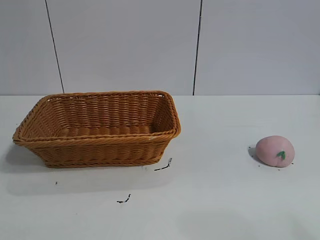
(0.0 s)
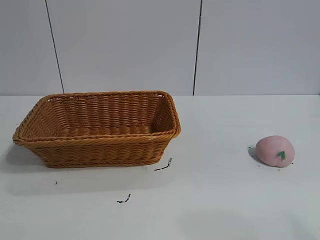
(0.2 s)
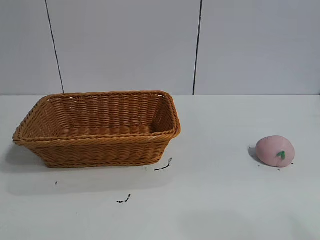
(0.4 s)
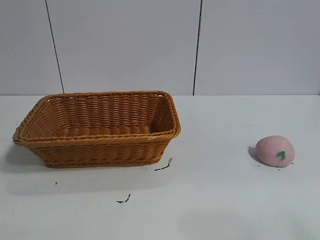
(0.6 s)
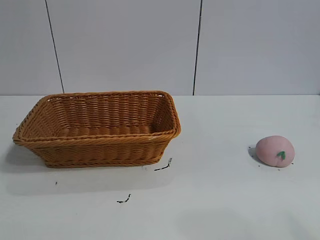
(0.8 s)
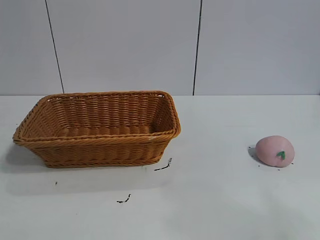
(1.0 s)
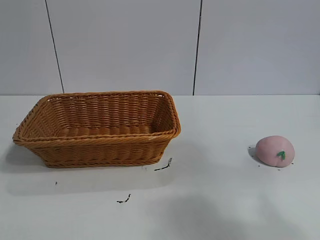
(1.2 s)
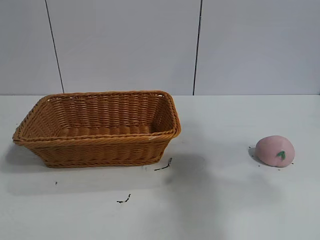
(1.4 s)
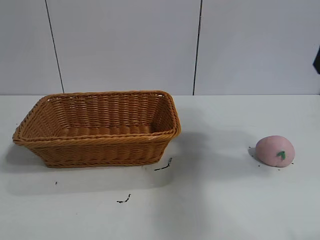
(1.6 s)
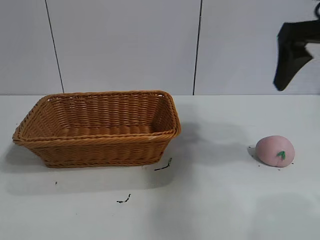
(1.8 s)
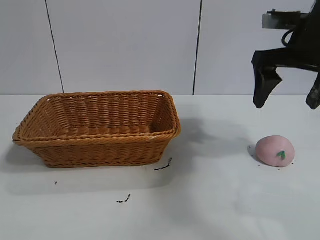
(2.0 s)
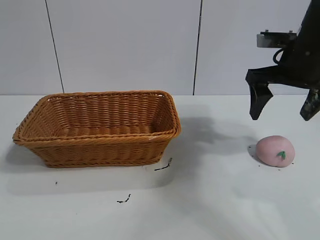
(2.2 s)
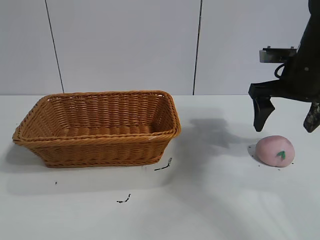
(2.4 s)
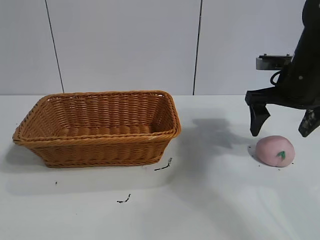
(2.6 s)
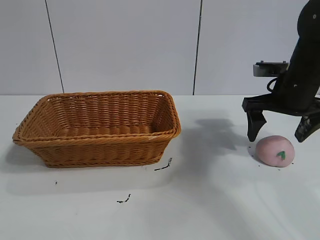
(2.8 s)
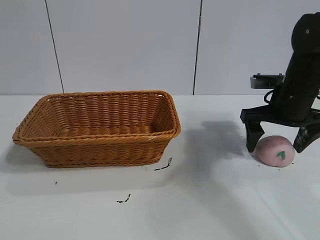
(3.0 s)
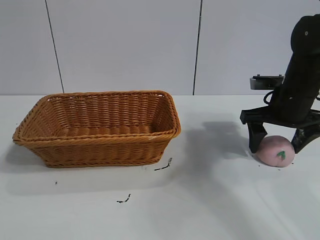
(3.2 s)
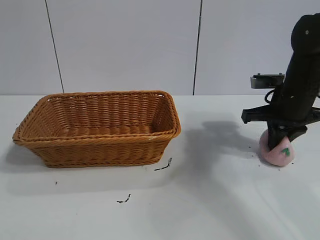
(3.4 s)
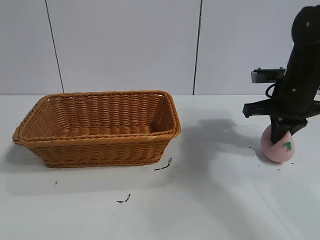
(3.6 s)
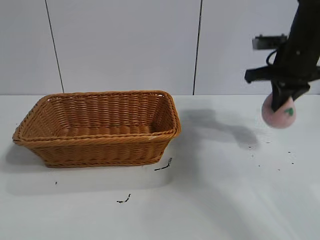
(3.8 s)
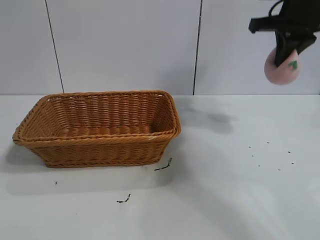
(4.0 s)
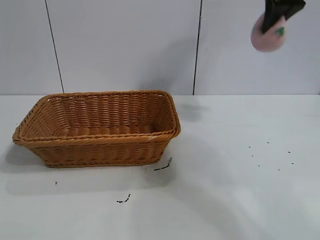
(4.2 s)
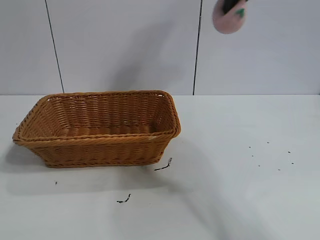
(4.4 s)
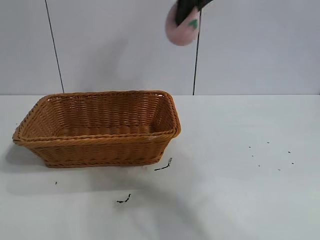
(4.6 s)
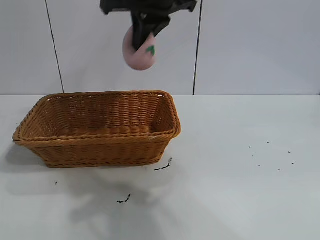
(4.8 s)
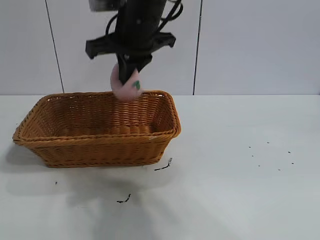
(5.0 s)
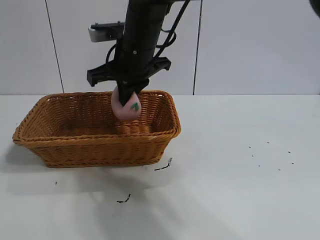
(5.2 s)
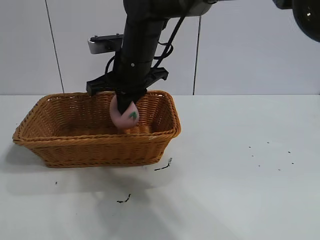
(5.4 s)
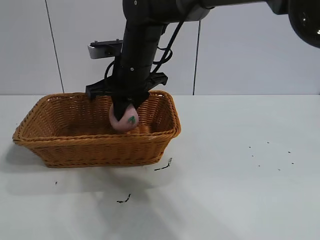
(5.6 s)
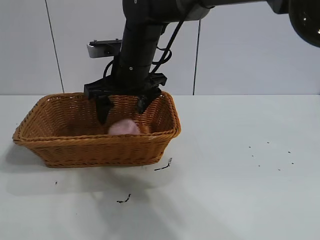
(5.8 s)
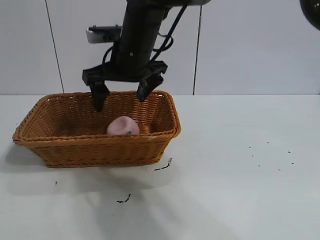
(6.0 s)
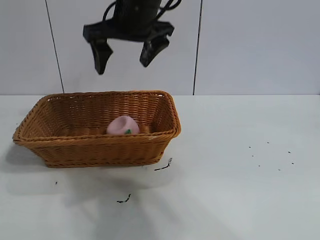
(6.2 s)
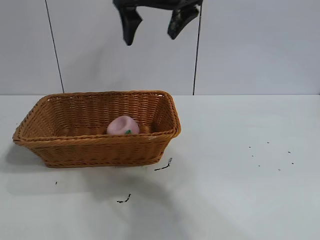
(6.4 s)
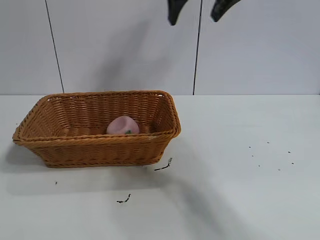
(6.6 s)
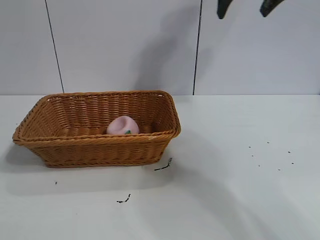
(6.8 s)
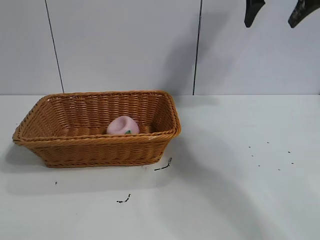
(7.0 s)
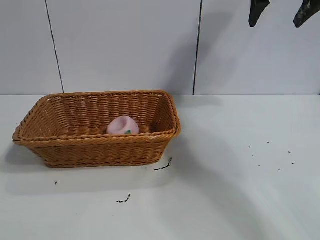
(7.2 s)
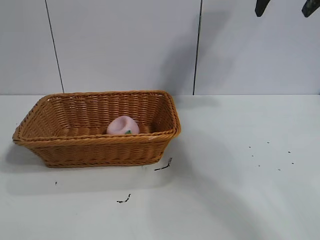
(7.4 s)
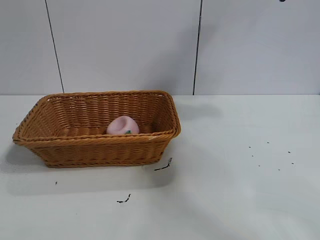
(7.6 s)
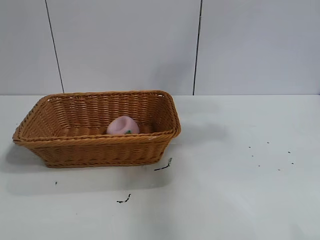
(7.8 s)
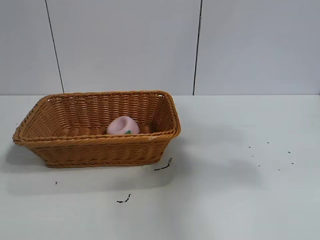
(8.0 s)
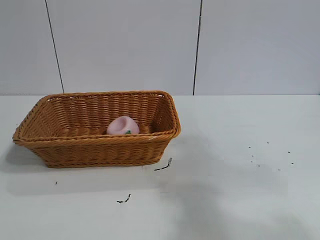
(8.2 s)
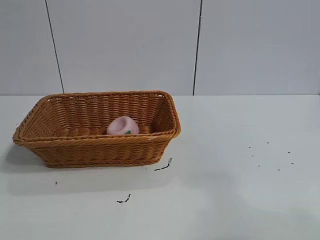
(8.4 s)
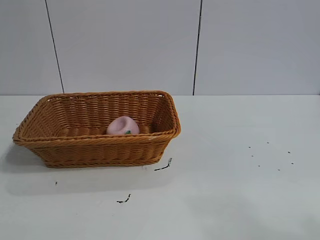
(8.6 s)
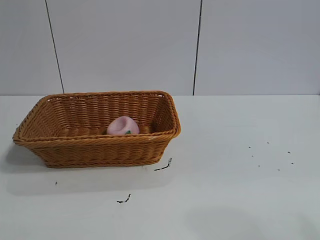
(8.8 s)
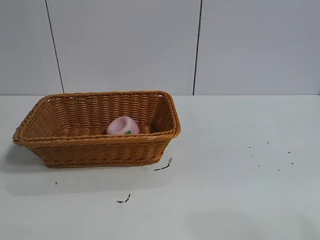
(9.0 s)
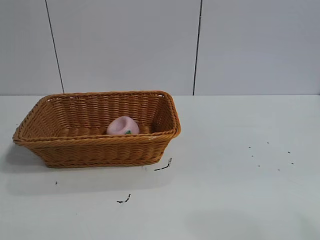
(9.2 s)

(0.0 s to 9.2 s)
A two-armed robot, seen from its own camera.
Task of the whole recording: pick up the peach and put it into the basket.
Step, 1.0 s - 3.6 s: Grasp the peach with right gripper.
Step, 4.0 s - 6.0 s: Place the peach in the basket with right gripper.

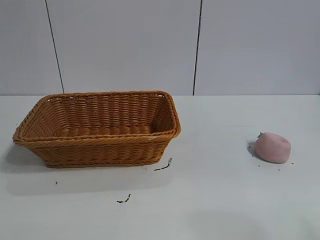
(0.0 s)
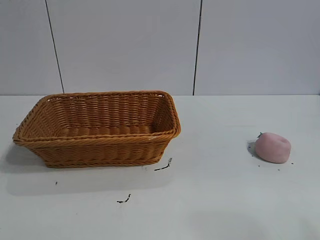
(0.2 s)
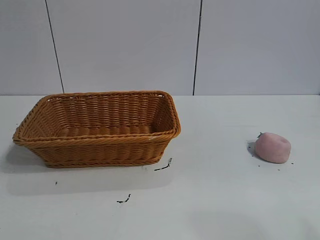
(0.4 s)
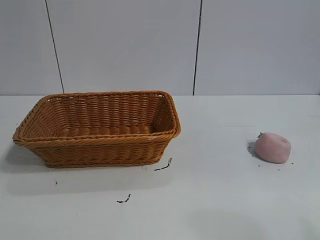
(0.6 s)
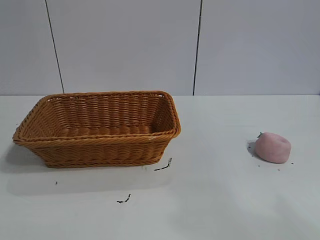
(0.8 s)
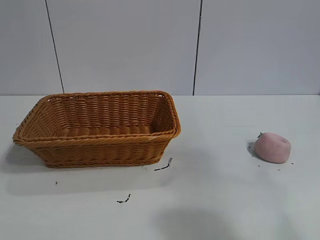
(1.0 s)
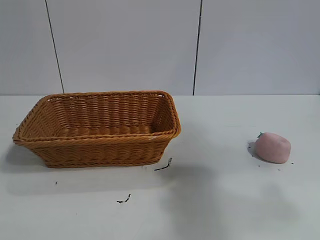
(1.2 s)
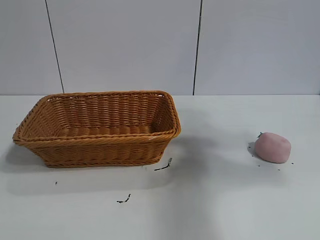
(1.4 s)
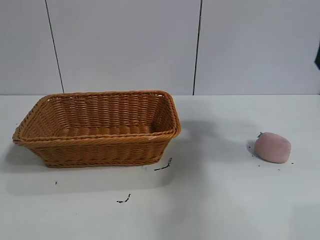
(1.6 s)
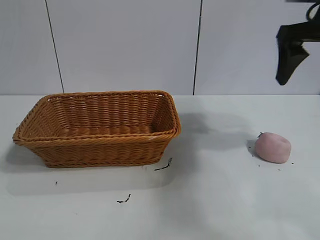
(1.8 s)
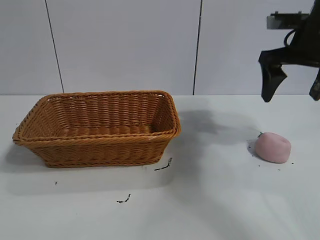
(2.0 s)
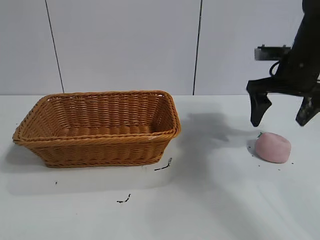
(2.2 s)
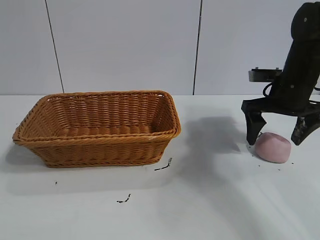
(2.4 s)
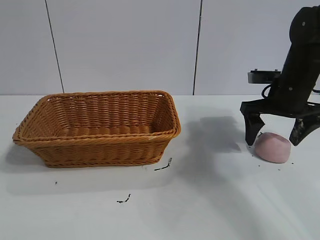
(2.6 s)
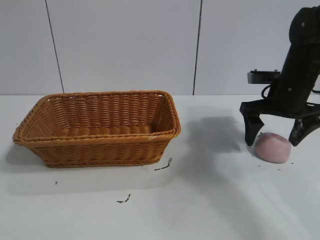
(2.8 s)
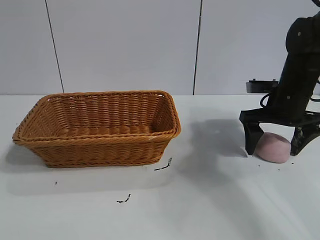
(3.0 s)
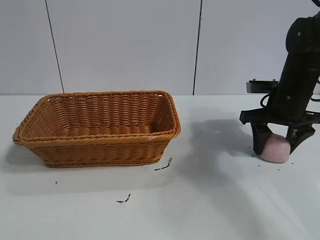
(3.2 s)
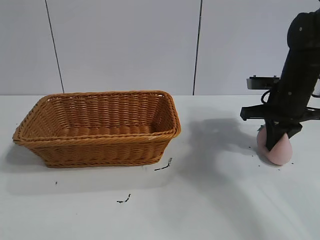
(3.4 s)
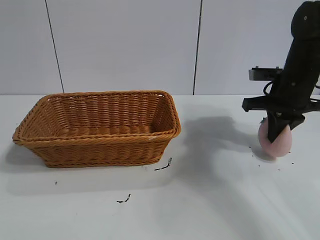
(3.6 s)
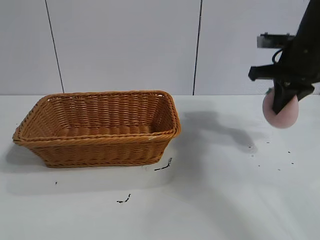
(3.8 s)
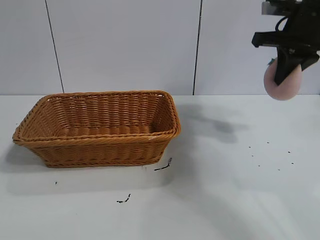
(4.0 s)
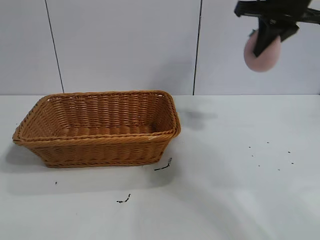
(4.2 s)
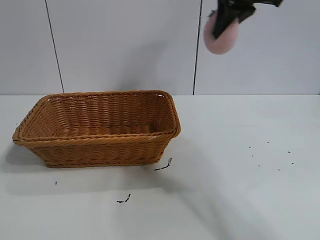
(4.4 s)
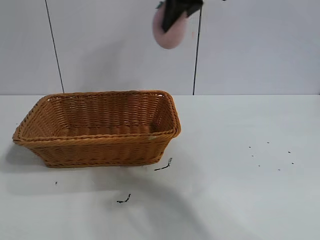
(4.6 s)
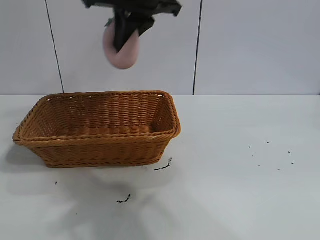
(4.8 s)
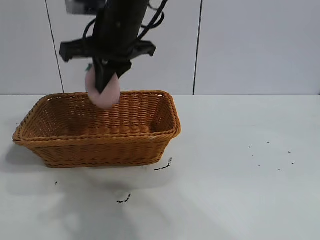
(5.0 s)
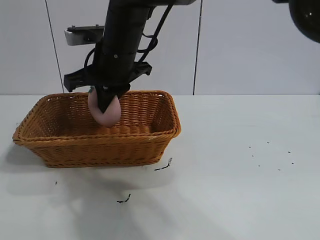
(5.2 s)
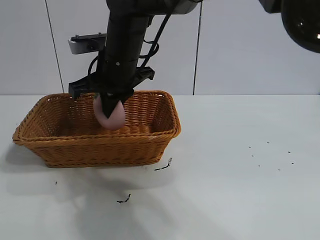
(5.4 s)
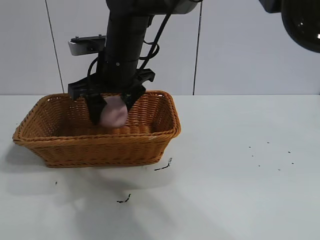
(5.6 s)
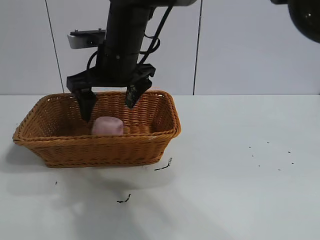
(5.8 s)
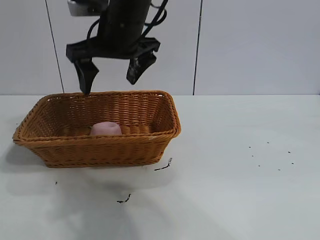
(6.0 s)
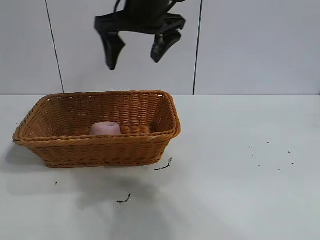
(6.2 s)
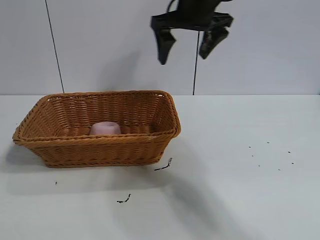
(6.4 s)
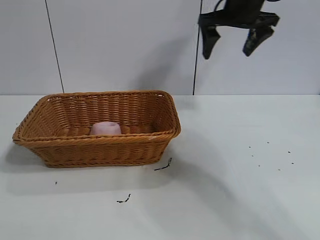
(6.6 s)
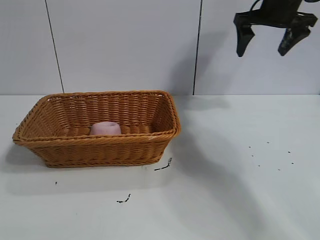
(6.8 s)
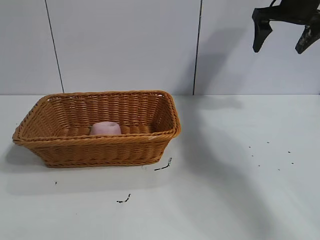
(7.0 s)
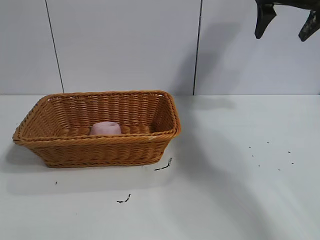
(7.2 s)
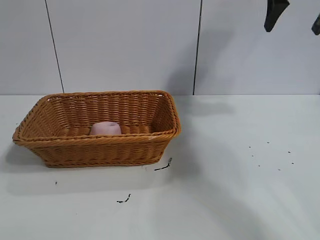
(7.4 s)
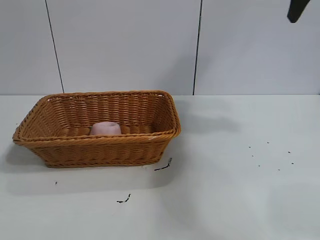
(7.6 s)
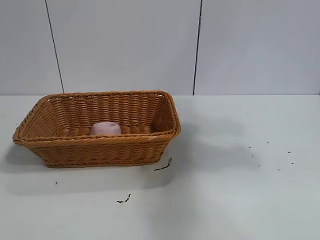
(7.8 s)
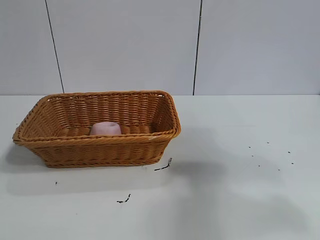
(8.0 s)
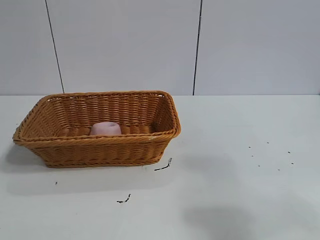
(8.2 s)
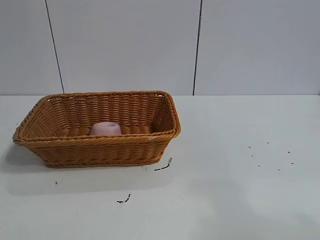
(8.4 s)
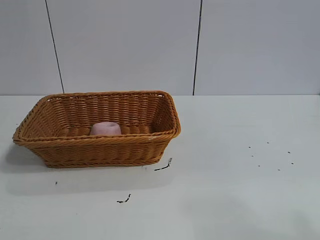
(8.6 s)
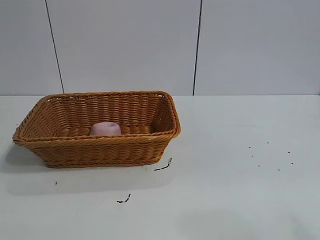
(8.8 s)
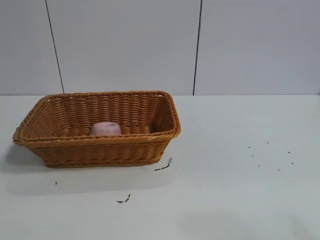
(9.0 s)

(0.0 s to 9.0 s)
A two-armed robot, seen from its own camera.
Task of the whole recording: pick up the peach and put it into the basket.
Step, 0.8 s - 3.4 s: Grasp the peach with right gripper.
Step, 3.8 s - 6.2 s: Place the peach in the basket with right gripper.
